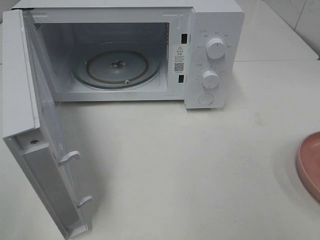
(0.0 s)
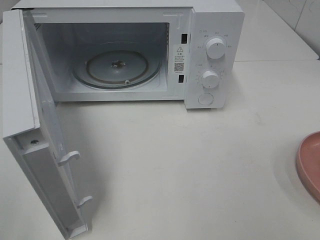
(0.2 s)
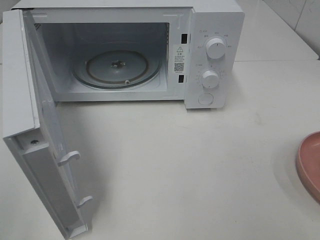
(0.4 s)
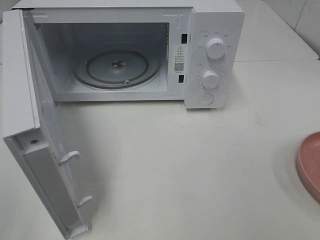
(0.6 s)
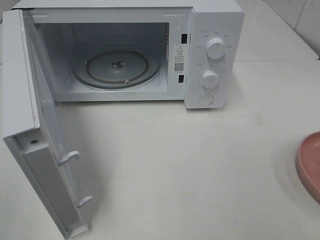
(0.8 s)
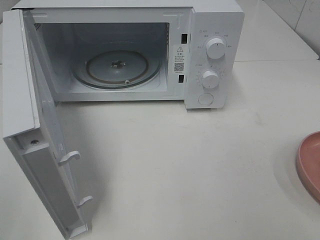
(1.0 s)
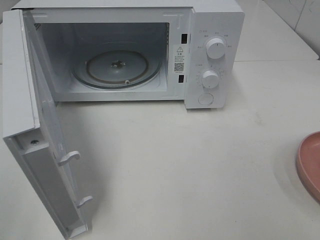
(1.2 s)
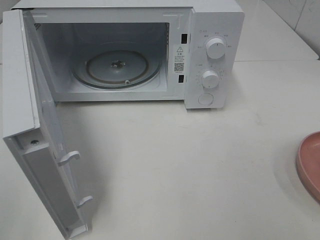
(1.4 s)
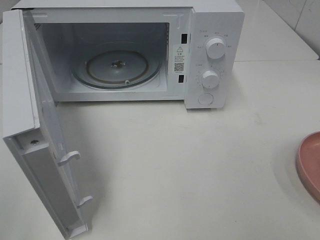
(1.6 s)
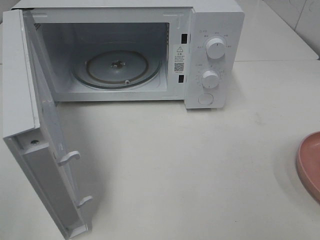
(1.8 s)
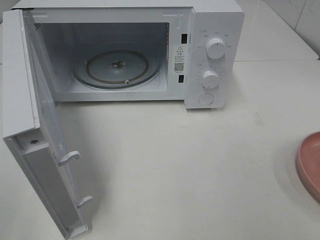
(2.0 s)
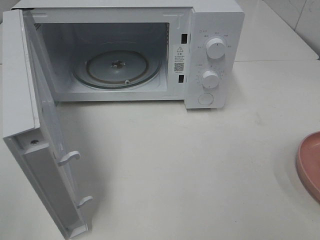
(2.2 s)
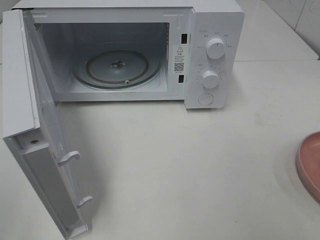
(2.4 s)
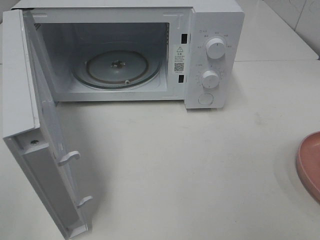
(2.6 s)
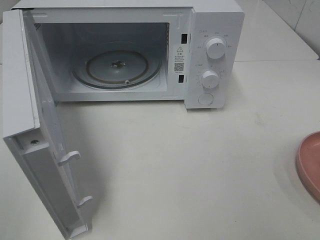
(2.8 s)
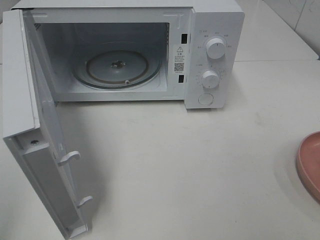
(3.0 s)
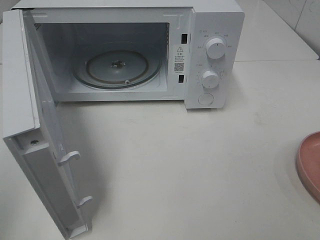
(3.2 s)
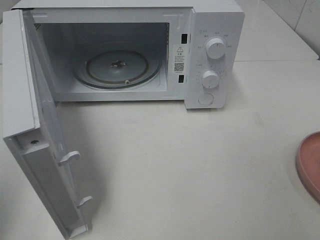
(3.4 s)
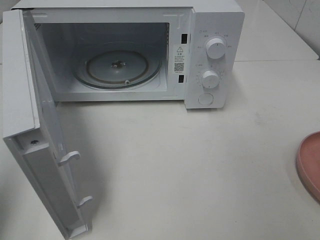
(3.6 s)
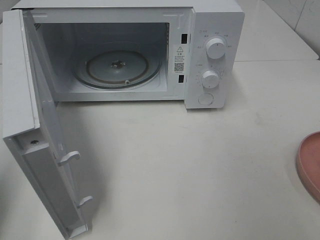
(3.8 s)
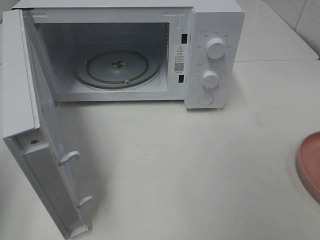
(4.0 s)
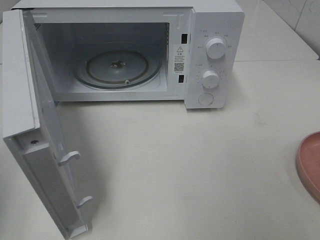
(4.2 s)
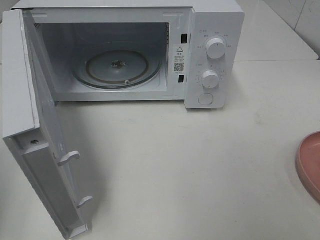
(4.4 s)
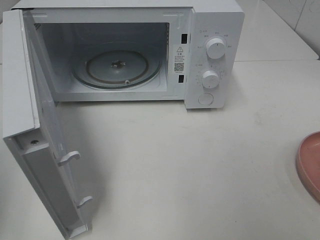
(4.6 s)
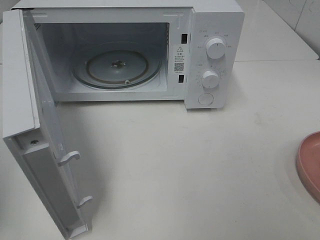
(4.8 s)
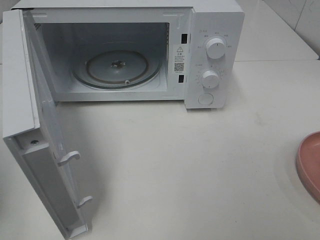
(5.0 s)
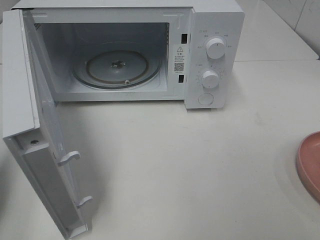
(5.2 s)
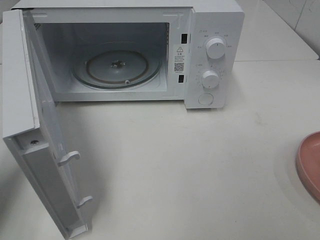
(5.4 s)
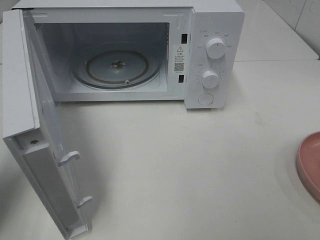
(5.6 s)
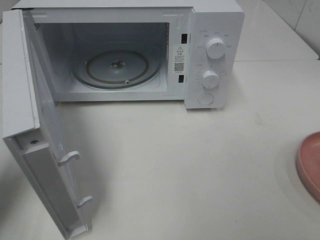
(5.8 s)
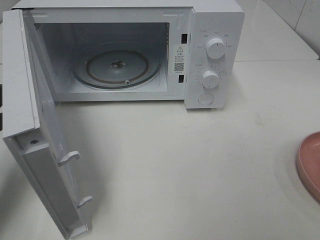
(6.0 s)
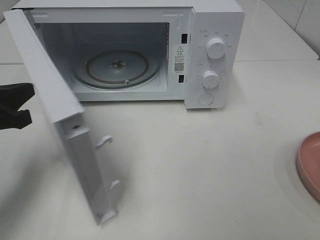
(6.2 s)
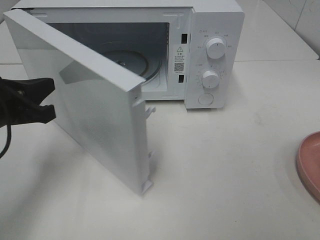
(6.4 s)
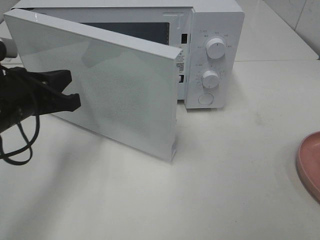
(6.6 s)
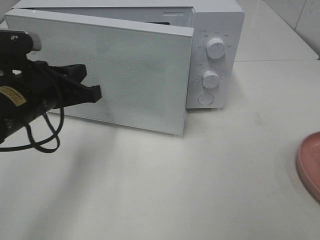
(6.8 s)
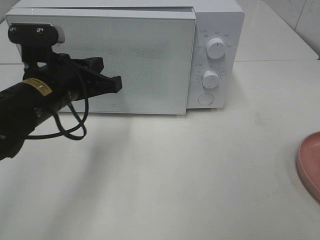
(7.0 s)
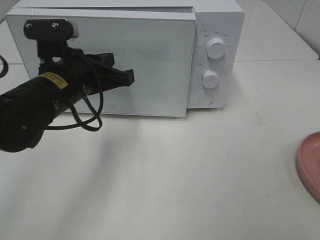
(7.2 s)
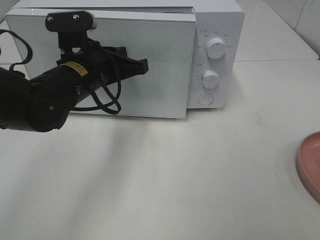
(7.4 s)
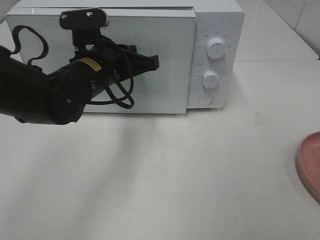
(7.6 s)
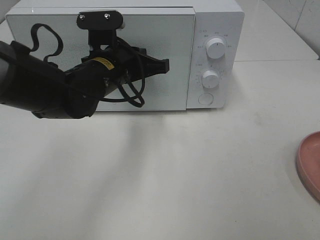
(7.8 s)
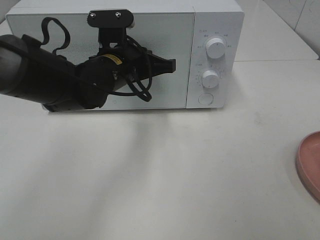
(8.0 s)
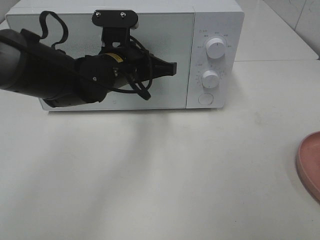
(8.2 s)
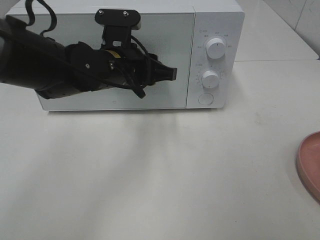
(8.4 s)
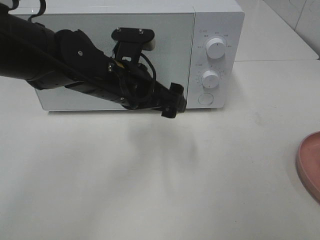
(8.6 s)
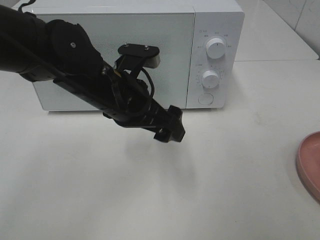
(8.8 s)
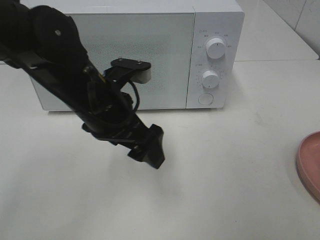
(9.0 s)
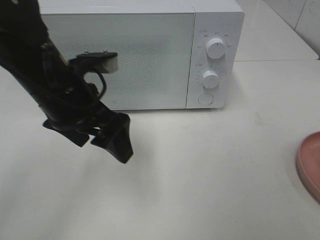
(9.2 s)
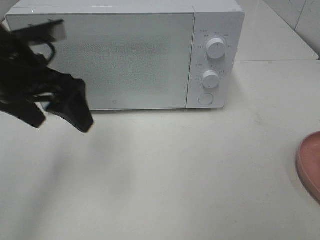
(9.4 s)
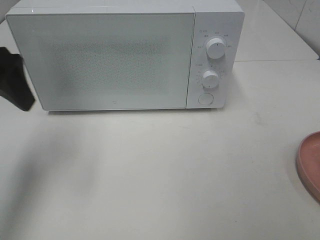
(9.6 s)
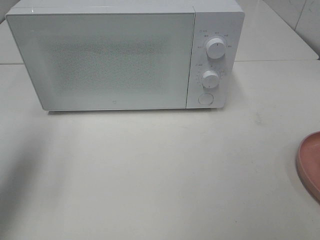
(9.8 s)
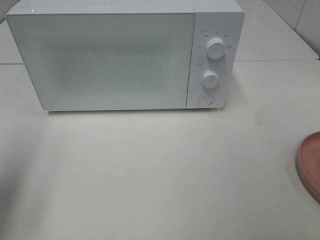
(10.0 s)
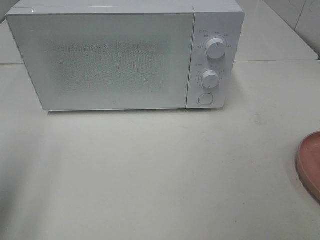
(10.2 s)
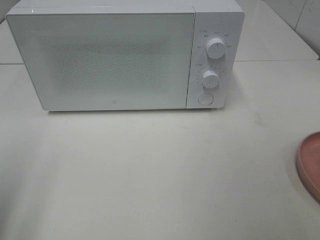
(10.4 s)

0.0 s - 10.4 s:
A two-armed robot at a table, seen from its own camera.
Task of the whole recording: Heat the burger.
Step, 0.0 s - 8.4 s: Left hand: close the microwave door.
4.4 s - 6.0 s: The left gripper shifts roughly 15 cm forward, downward and to the right.
6.0 s - 7.4 s: The left gripper goes roughly 20 cm to the right and forward.
7.4 s - 9.0 s: The left gripper shifts by about 5 cm, and opens its fingers.
9.0 s - 10.4 s: The left gripper moves to the left and backward, some 30 cm.

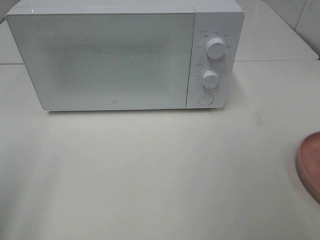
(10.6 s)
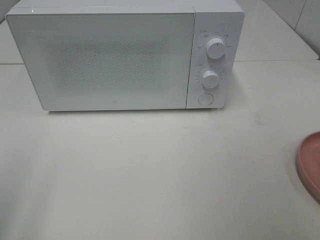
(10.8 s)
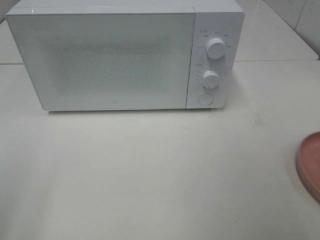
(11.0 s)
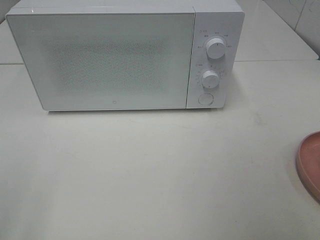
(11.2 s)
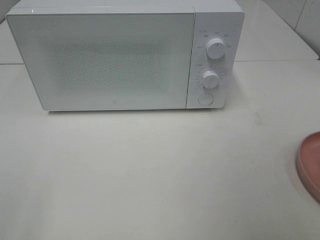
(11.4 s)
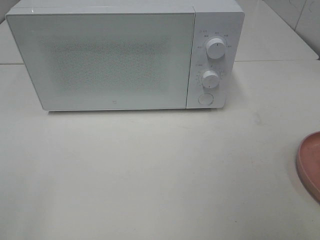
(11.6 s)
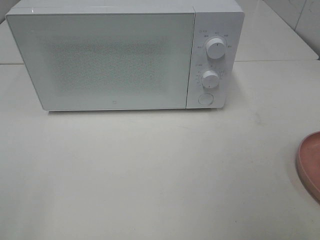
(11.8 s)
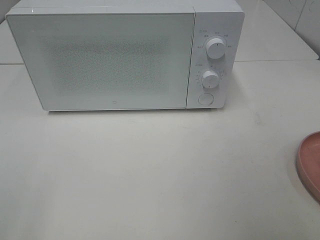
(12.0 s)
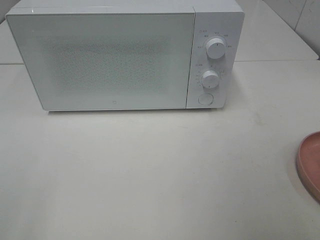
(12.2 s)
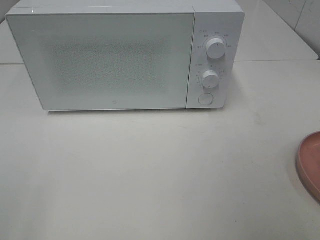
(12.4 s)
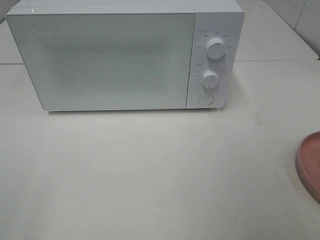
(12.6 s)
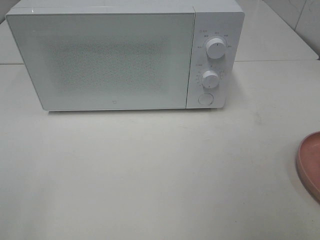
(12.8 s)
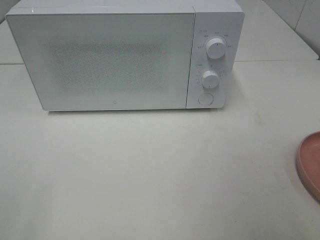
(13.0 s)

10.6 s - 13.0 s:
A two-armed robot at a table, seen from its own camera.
Task of the whole recording: Heat the burger.
11.8 s - 13.0 s: Both grippers stay about where they are.

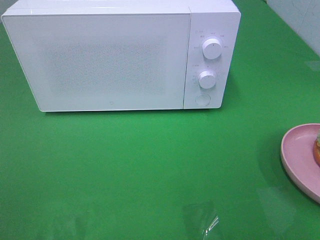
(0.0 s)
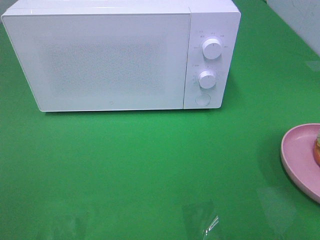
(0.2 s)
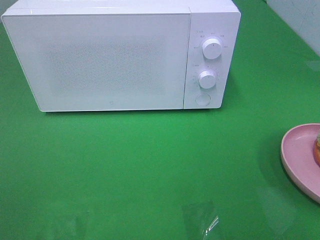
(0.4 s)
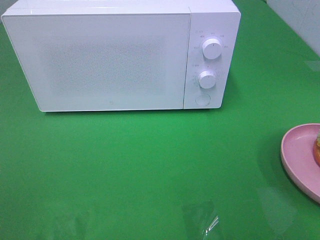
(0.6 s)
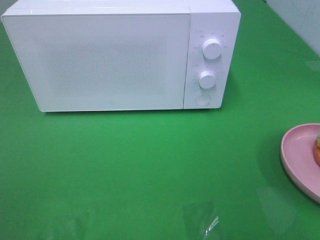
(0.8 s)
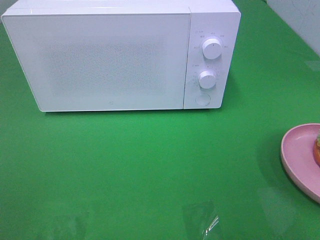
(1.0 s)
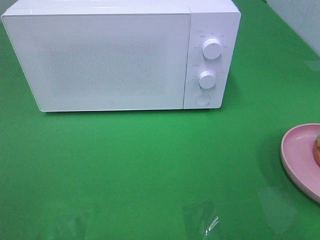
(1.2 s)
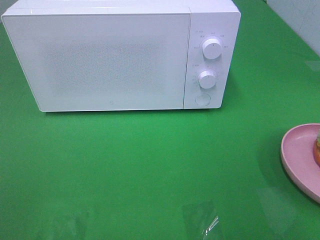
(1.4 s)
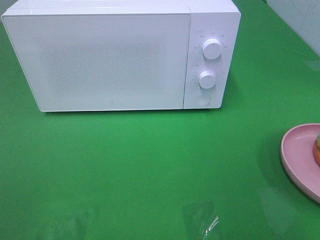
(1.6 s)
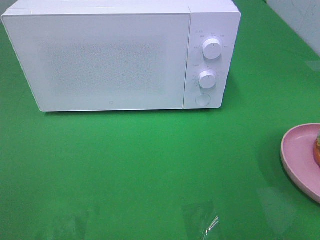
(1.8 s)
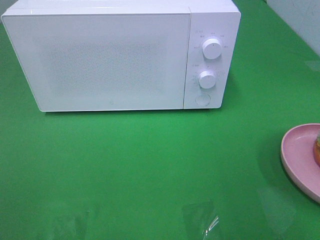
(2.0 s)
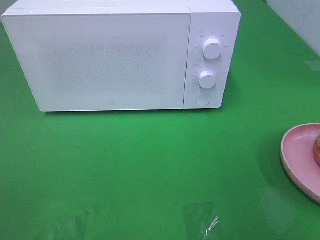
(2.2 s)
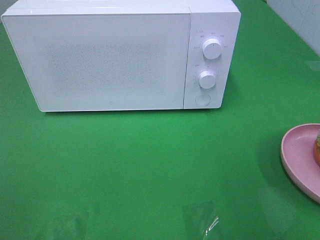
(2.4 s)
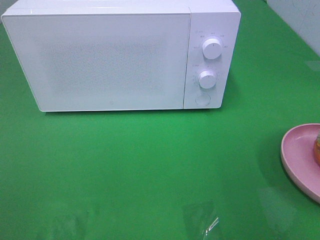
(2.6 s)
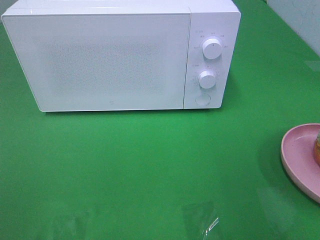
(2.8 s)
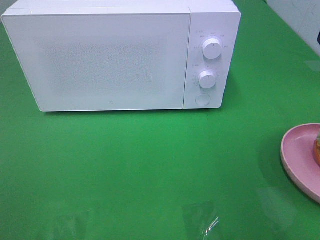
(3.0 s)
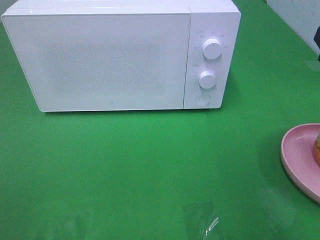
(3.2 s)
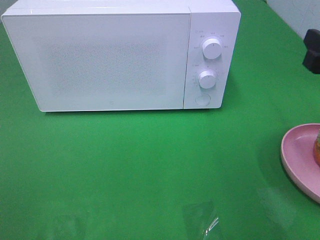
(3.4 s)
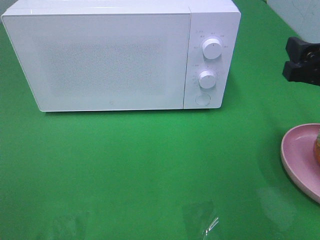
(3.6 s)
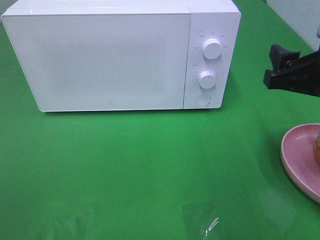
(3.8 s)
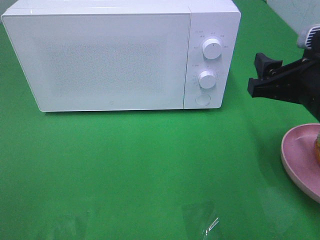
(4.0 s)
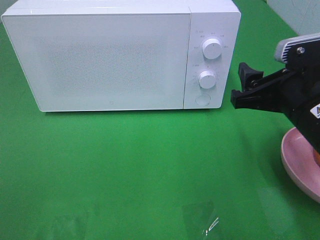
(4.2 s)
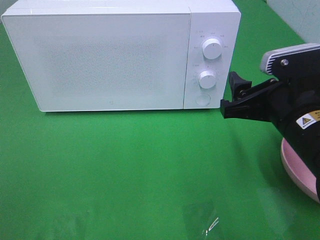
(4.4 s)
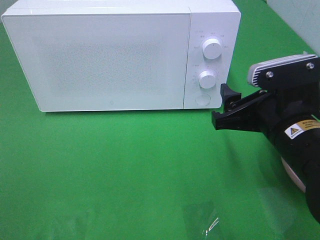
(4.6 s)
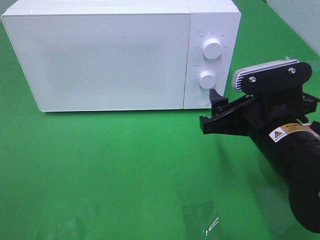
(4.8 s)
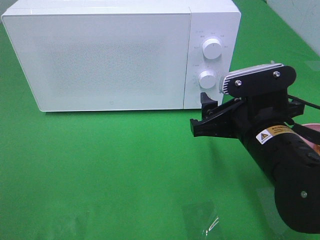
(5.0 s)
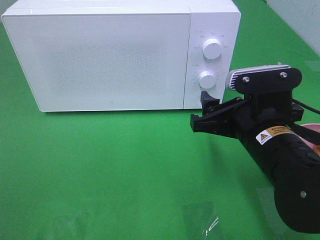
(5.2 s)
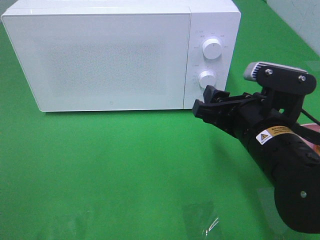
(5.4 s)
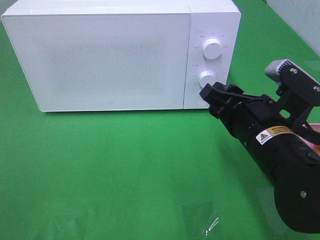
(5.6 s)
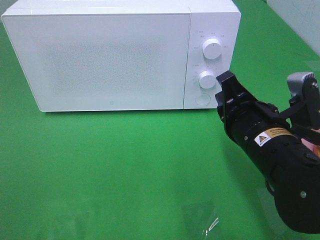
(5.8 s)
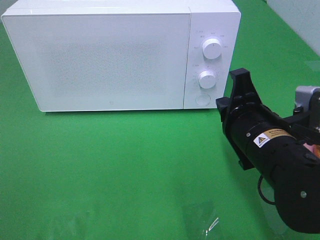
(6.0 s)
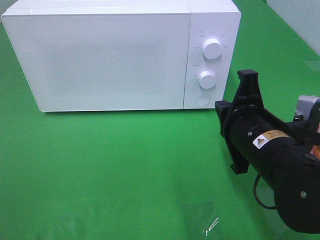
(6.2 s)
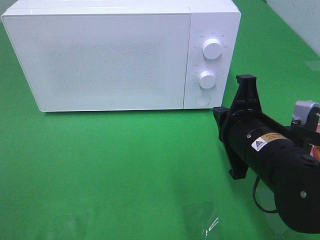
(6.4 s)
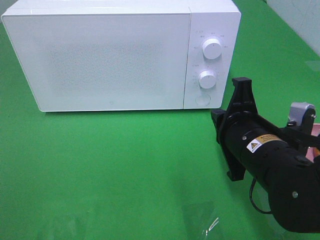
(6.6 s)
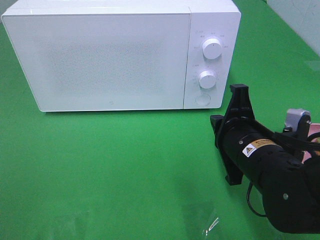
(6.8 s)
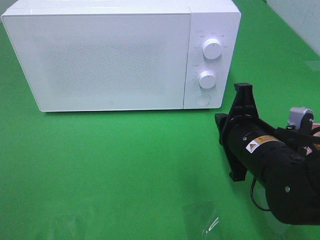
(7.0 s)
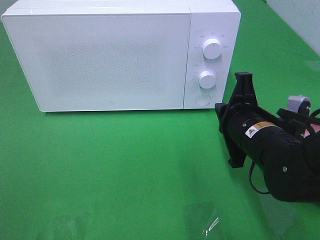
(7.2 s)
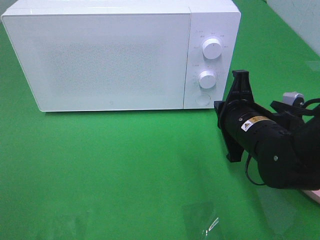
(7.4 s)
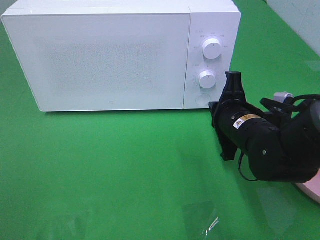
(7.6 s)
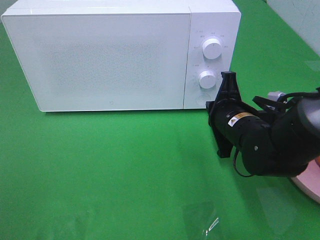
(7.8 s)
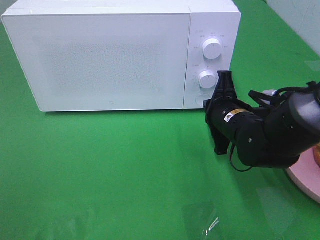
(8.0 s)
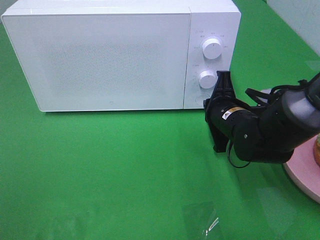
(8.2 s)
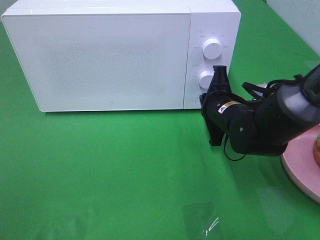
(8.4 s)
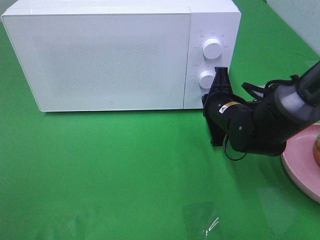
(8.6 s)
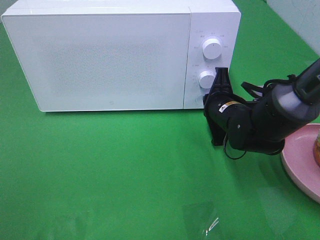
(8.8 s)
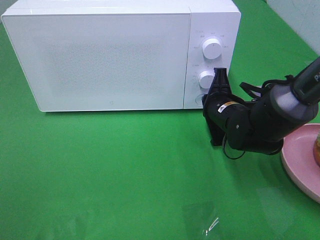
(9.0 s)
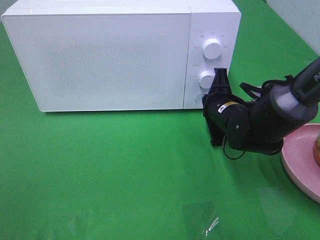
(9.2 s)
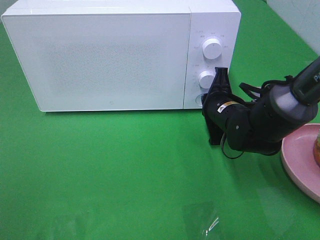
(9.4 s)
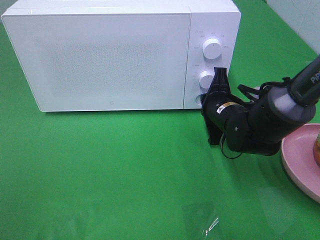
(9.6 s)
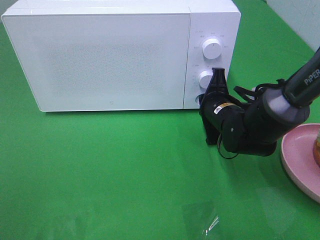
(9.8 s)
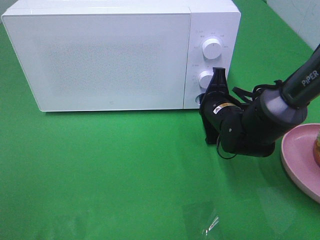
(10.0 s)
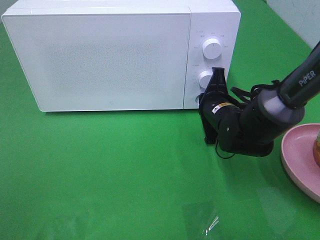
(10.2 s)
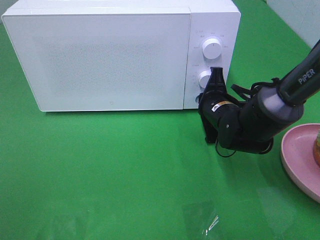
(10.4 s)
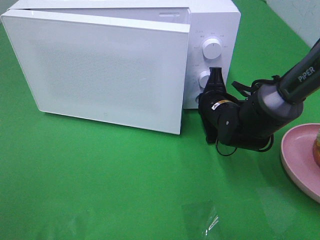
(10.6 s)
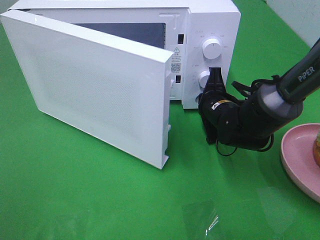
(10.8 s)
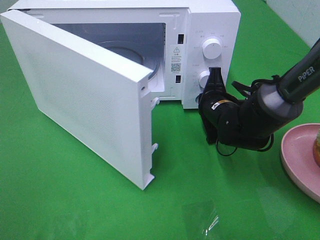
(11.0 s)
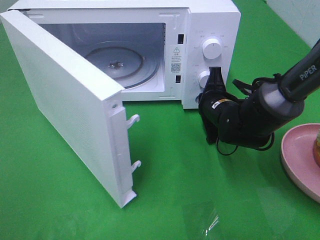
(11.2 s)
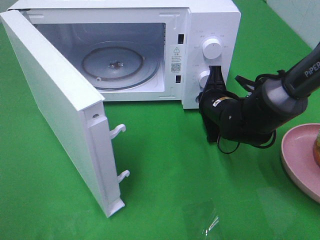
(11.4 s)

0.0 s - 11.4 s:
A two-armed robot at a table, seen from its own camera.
Task of the whole recording: Heat the burger.
2.8 s - 4.2 s: The right gripper moves to the left and downward, approximately 10 cm.
4.2 s - 5.6 s: The right gripper changes place by about 5 cm.
5.6 s - 7.2 s: The right gripper closes.
7.2 s - 8.6 s: The right gripper goes roughly 10 cm forward.
8.6 s - 10.0 s: The grippers stay close to where they were, moving slightly.
